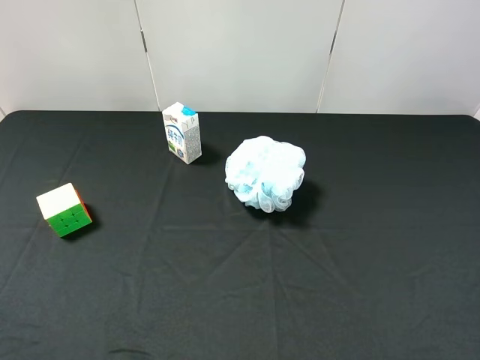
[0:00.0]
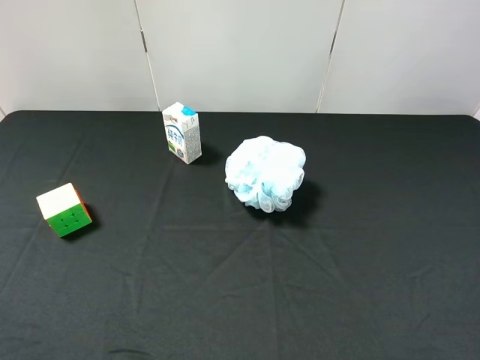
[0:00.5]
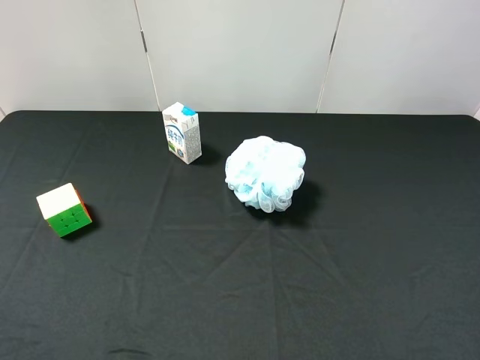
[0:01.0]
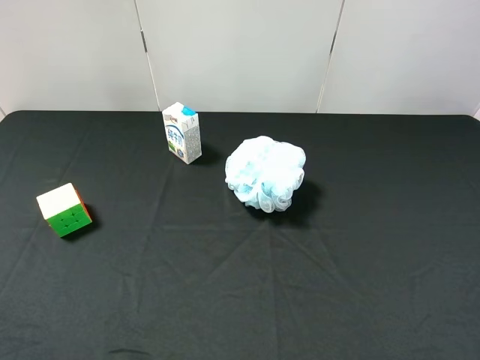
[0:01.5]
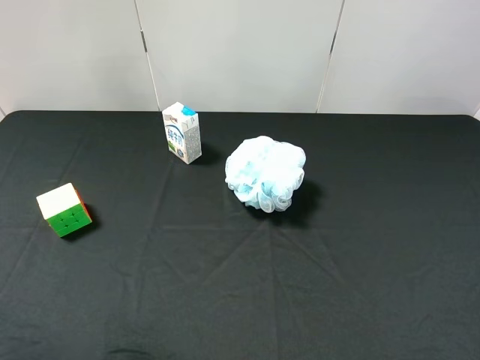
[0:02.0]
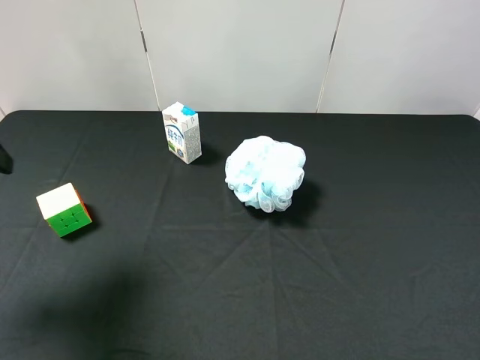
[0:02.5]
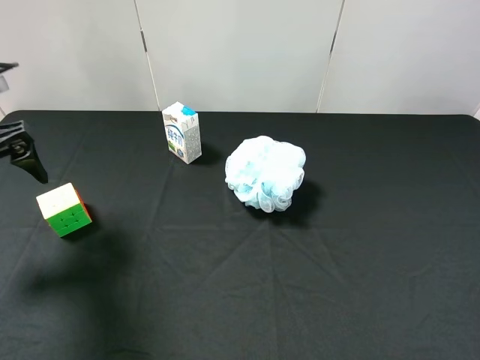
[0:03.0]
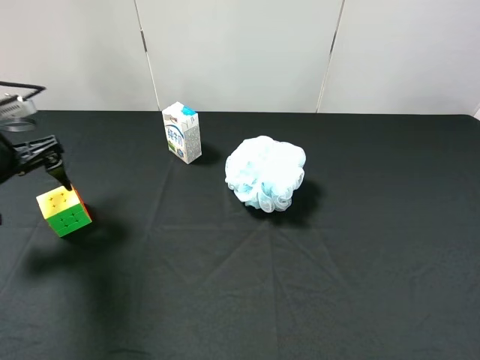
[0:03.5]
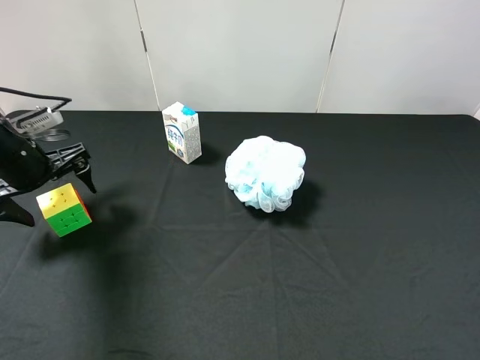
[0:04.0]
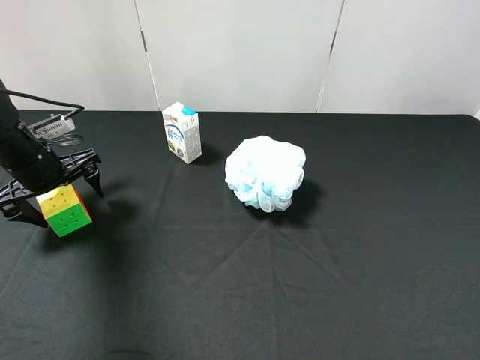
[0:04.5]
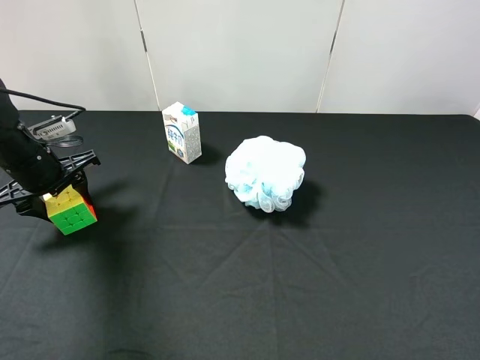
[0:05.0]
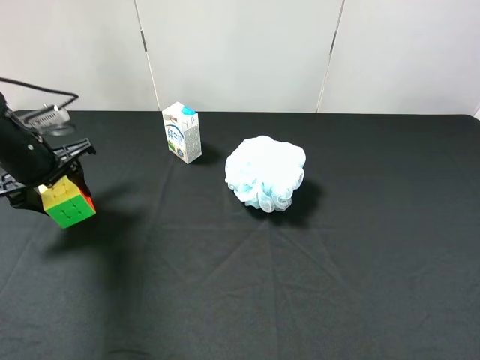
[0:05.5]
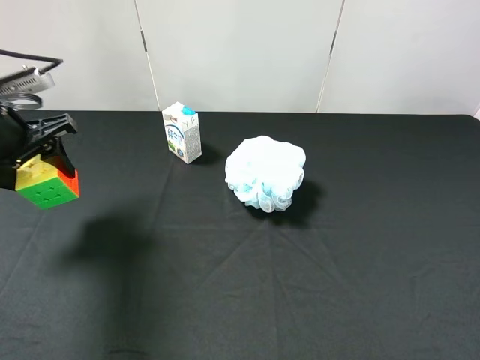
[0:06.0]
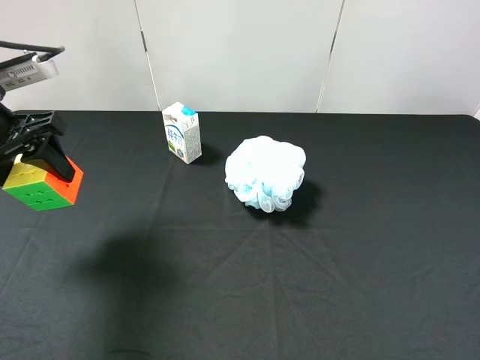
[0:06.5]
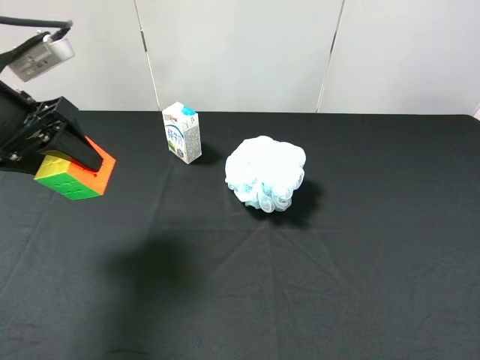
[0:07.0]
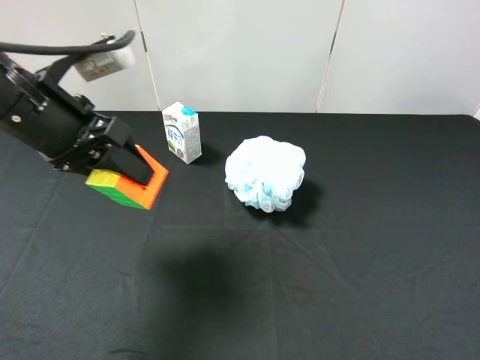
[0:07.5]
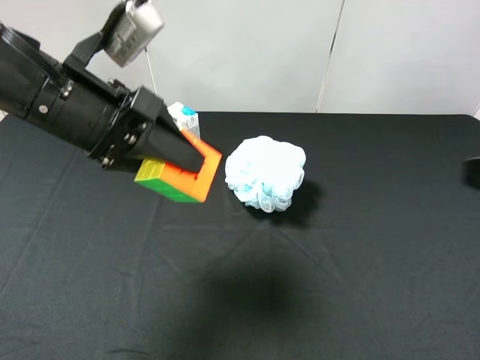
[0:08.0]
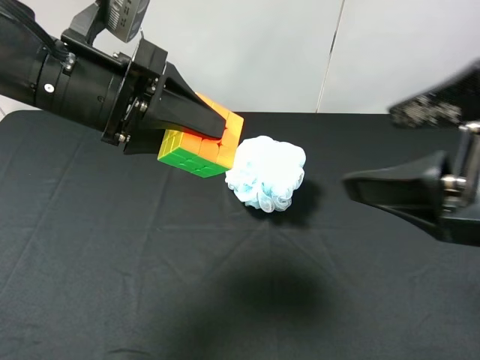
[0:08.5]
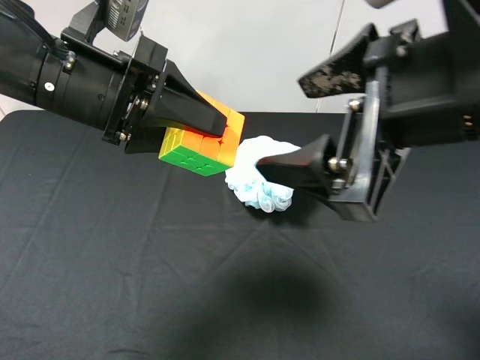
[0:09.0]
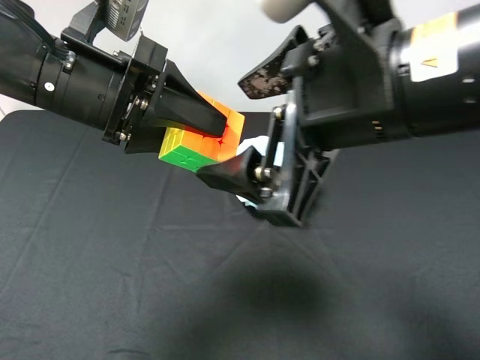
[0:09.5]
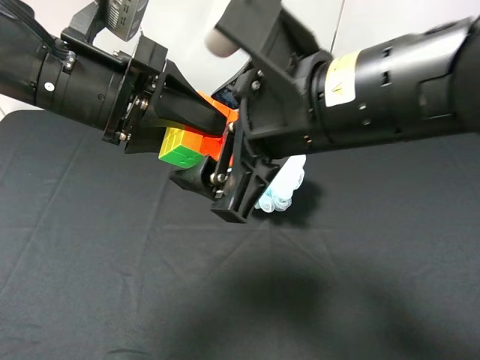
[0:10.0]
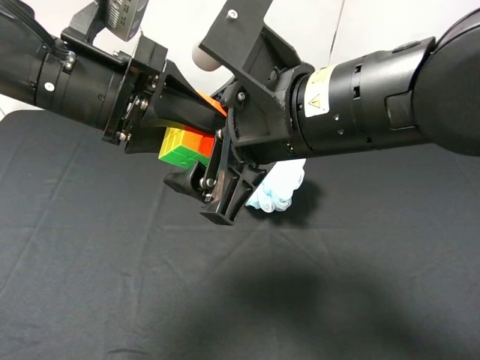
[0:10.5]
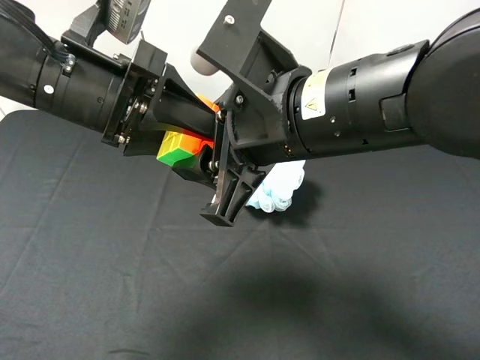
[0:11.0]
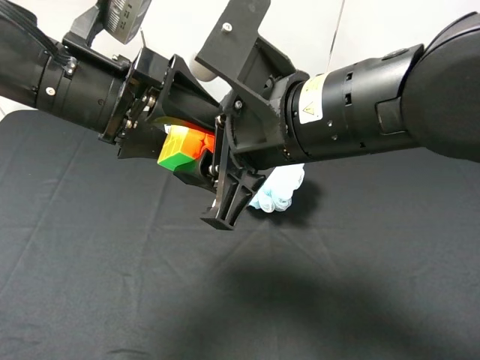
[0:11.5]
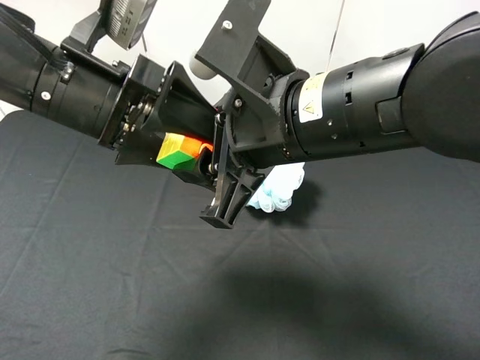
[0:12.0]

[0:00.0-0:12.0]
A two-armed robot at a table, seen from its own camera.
Task of the whole recording: use the left gripper to pick up the item and transfer it from the left gripper to the right gripper.
0:02.0 to 0:04.0: The left gripper travels forward and downward by roughly 30 cm.
0:04.0 to 0:06.0: The left gripper moves upward, some 10 cm, and closes up.
0:06.0 to 0:08.0: The right gripper moves forward, about 10 cm. The left gripper travels to the right by approximately 15 cm.
0:08.0 to 0:10.0: The right gripper is displaced to the left by roughly 20 cm.
0:10.0 to 0:12.0: The right gripper closes. The left gripper opens.

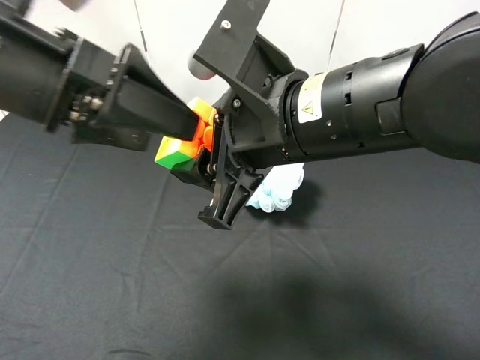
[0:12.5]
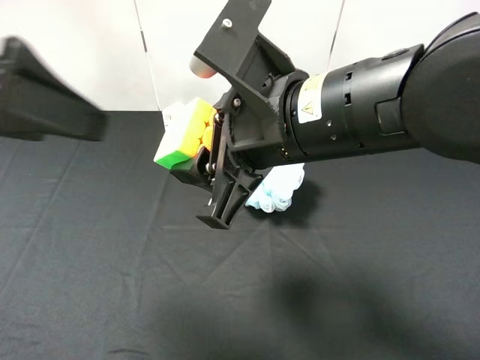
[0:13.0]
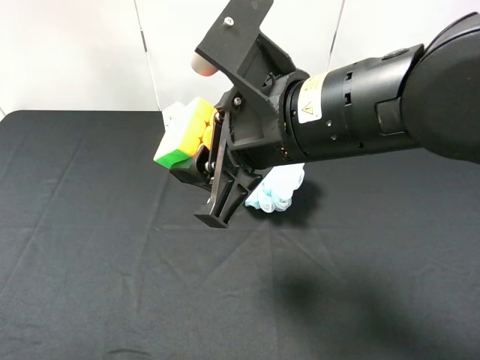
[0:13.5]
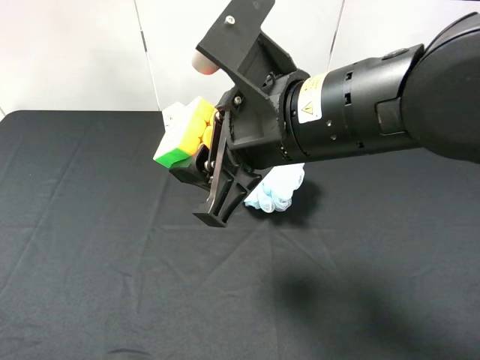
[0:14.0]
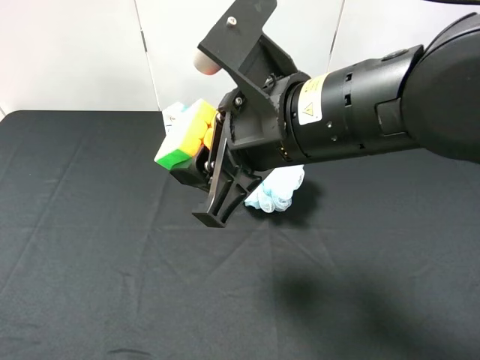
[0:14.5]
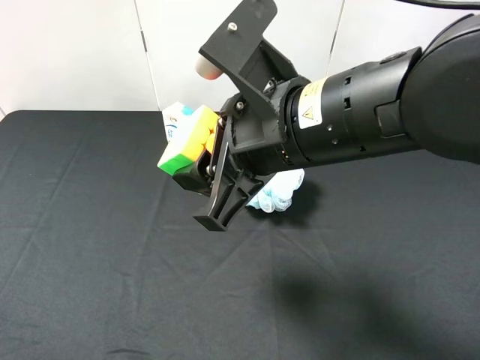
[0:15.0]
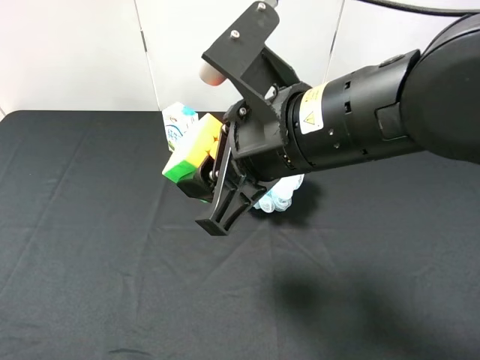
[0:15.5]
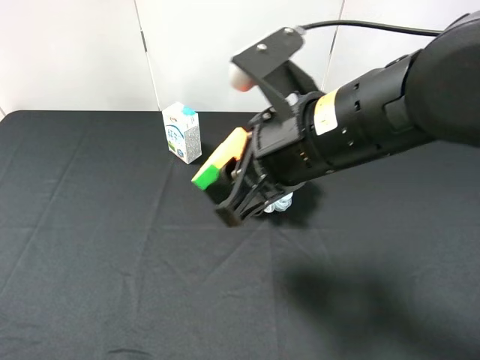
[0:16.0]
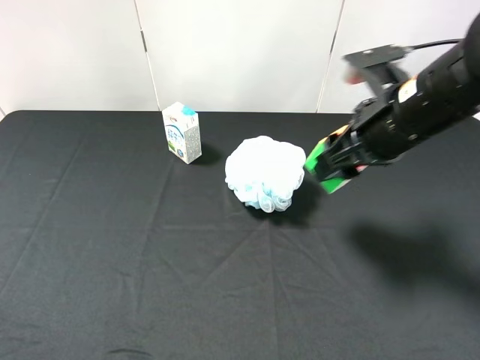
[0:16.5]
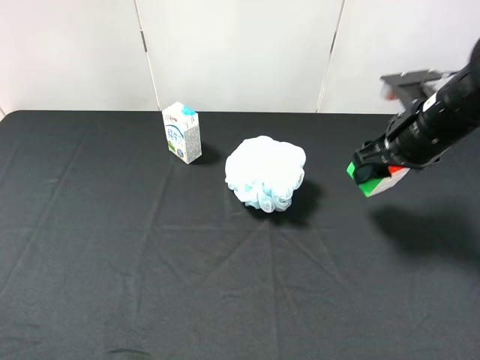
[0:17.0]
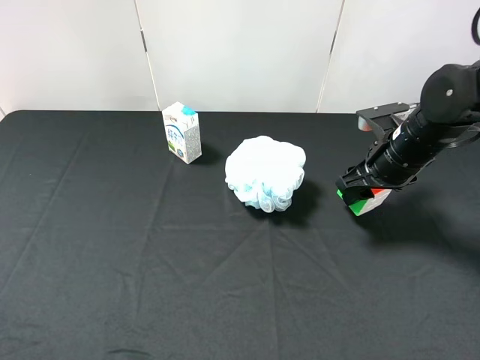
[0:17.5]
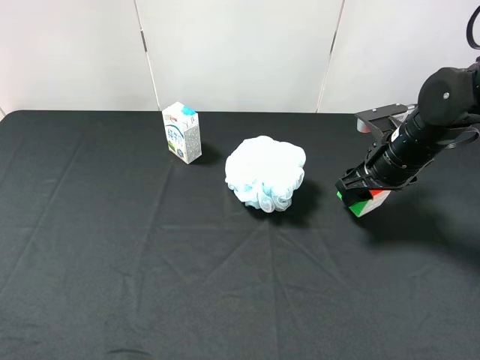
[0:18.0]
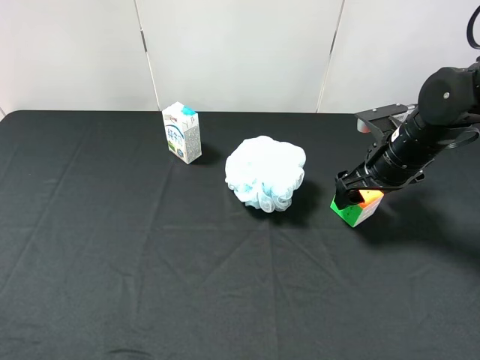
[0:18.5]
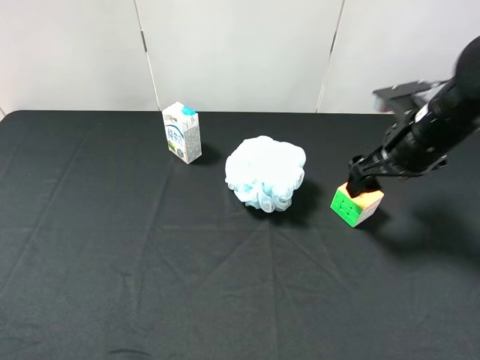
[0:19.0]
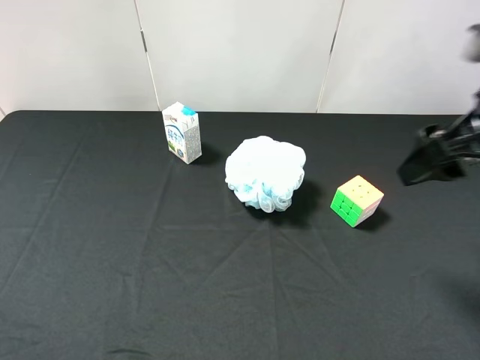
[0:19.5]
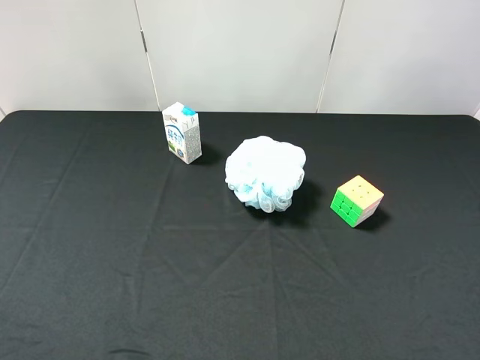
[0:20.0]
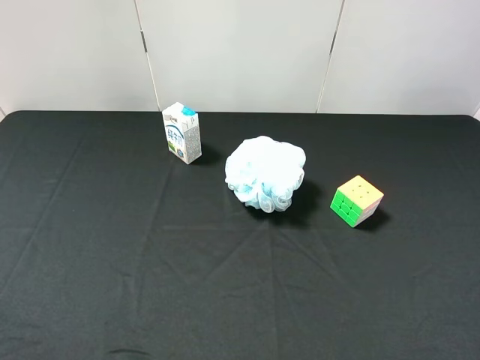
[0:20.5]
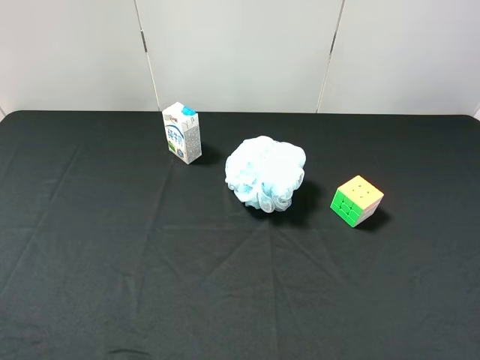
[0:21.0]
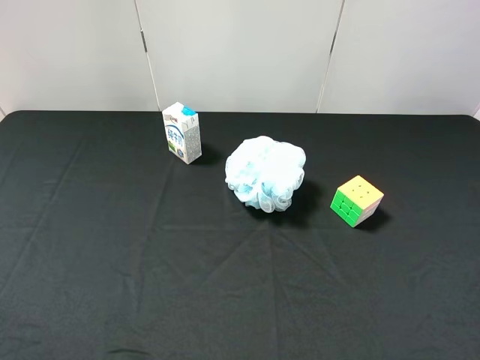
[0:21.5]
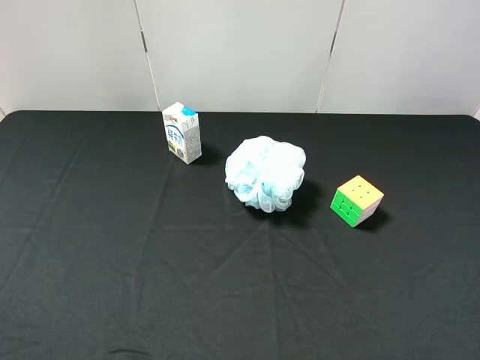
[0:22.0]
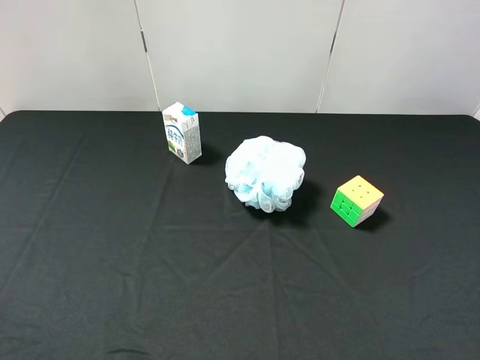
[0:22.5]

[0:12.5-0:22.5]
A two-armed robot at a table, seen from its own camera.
Task of the whole recording: use the left gripper to pick up the item and transfer it from the left gripper to the right gripper.
0:12.5 to 0:14.5: The left gripper shifts about 25 cm backward and to the left.
0:14.5 to 0:16.5: The left gripper changes place by about 5 cm, while the right gripper shifts about 15 cm to the right and forward.
0:16.5 to 0:18.5: The right gripper is displaced downward and forward by some 10 cm, and opens its fingers.
0:18.5 to 0:20.5: The right gripper is displaced backward and upward by about 35 cm.
